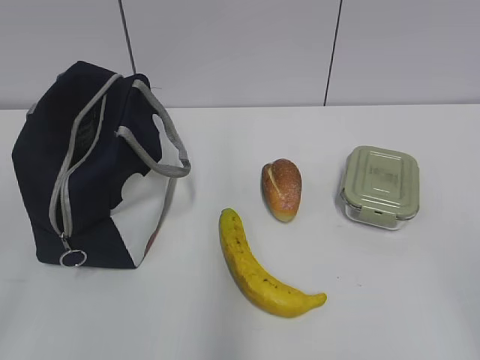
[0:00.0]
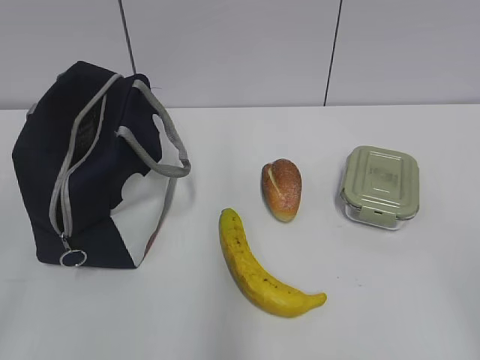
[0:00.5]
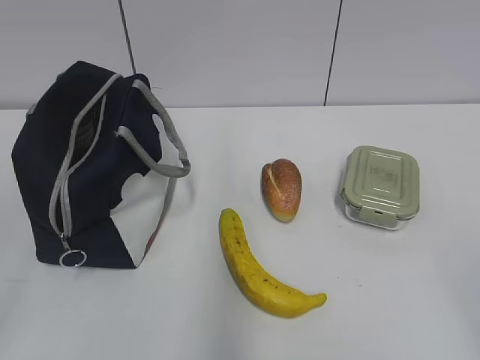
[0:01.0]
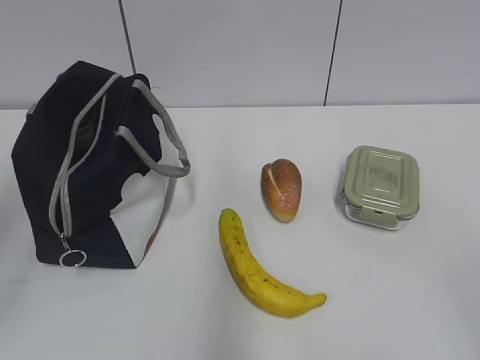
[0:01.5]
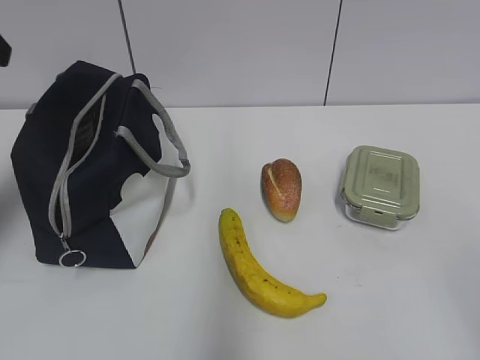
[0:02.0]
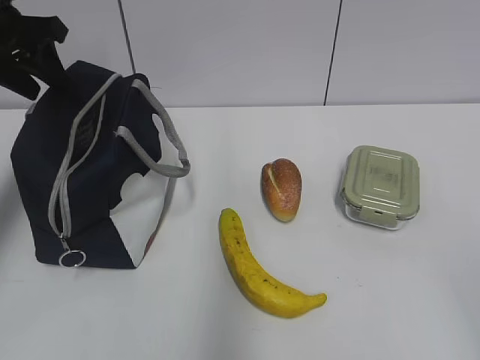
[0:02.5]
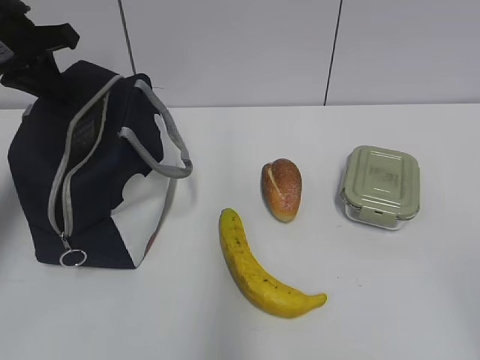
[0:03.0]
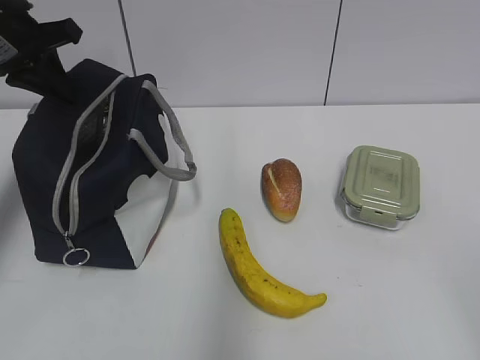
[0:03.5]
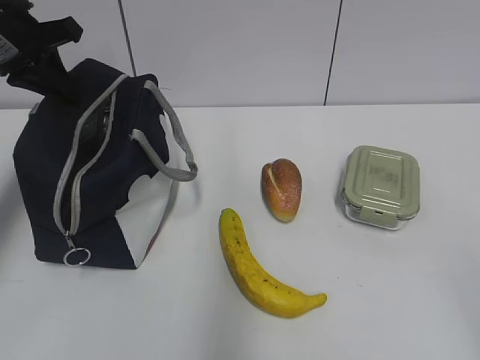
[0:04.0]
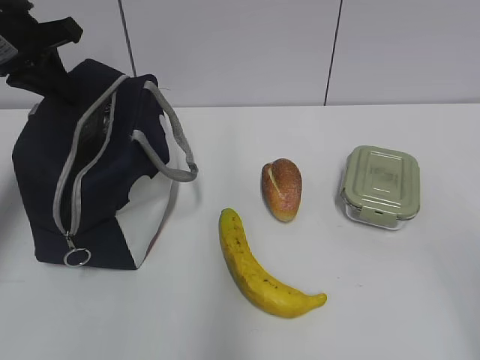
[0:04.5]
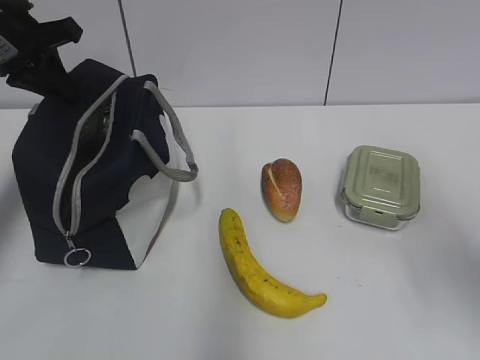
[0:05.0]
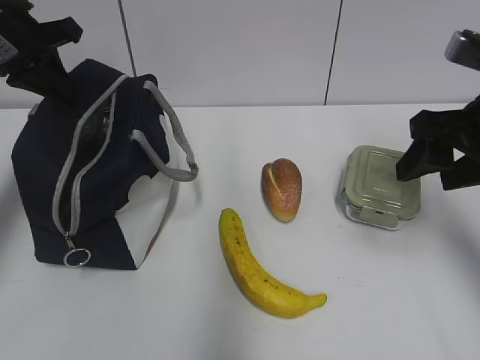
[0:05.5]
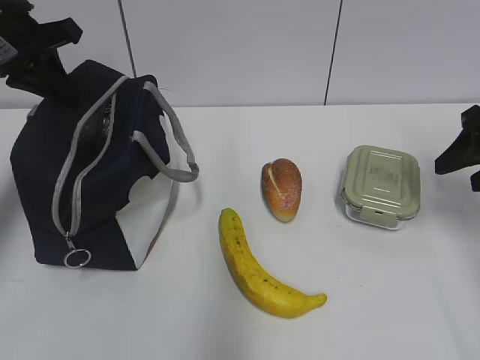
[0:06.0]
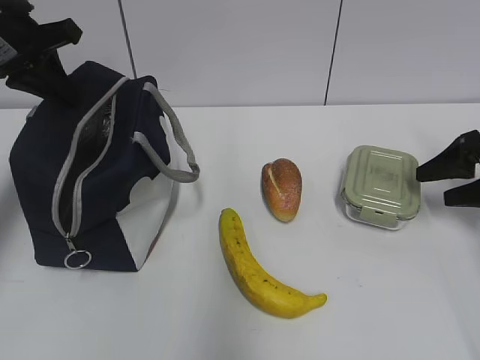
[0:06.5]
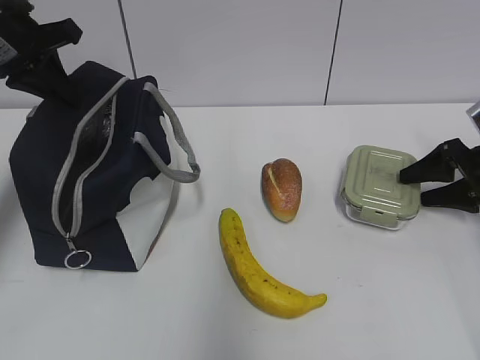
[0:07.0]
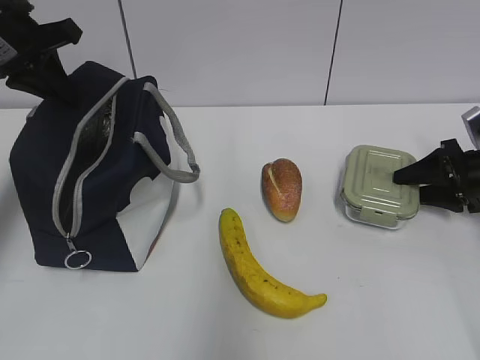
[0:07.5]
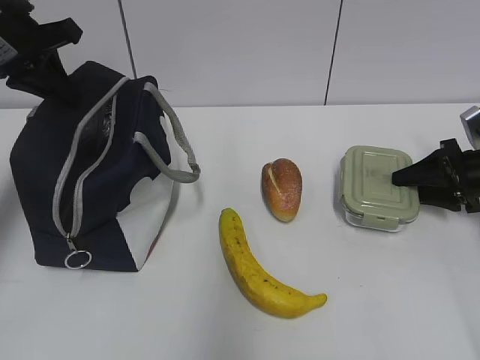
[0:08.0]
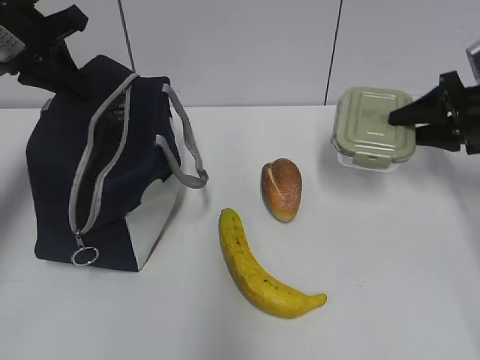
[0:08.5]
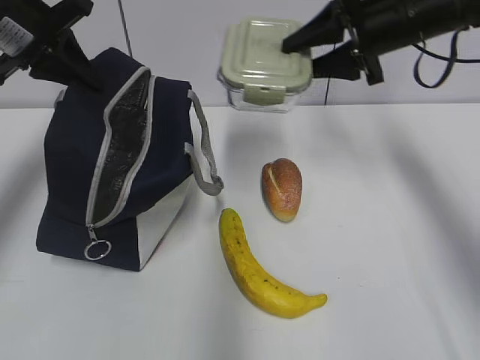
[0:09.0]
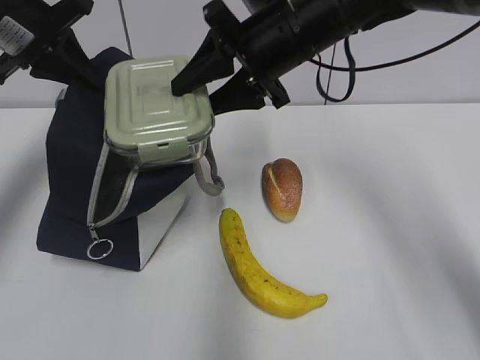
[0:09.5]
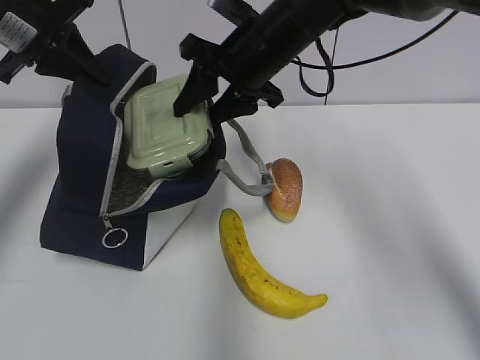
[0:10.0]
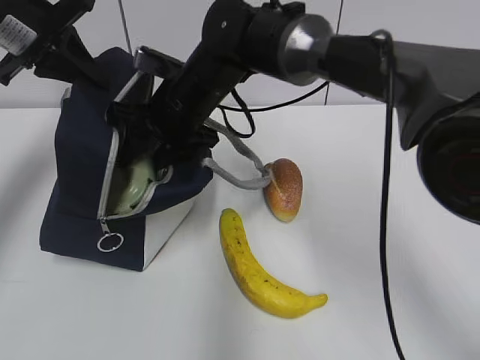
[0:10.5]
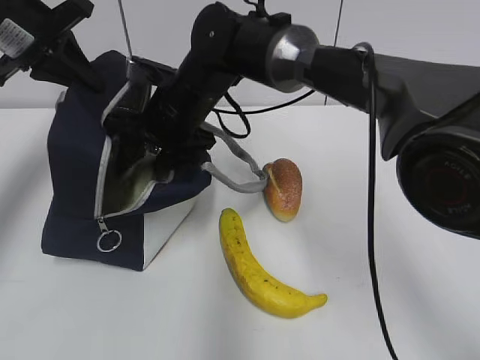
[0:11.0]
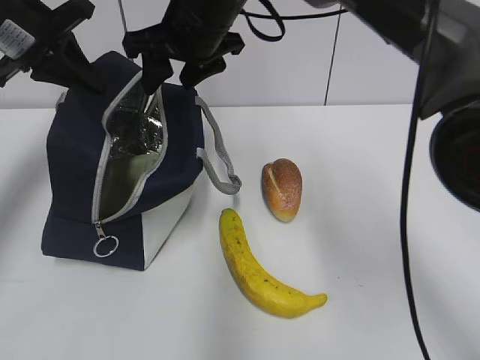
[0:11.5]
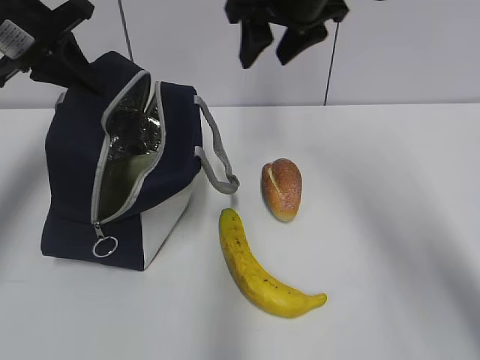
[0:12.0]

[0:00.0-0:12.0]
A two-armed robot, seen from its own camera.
Step, 0:00.0 to 0:07.0: Grab the lunch box with your right hand.
Step, 0:10.0 to 0:11.0: Place it into the bag with your right hand.
0:02.0 to 0:04.0: The left gripper is displaced forward and downward by about 15 cm, and closes its fingers.
0:04.0 to 0:06.0: The right gripper shifts about 30 cm forward.
0:06.0 to 0:08.0: The right gripper travels downward and forward by approximately 15 cm.
0:08.0 to 0:10.0: The right gripper is displaced to the left and upward by some 35 cm.
0:10.0 to 0:12.0: The right gripper travels upward by about 5 cm.

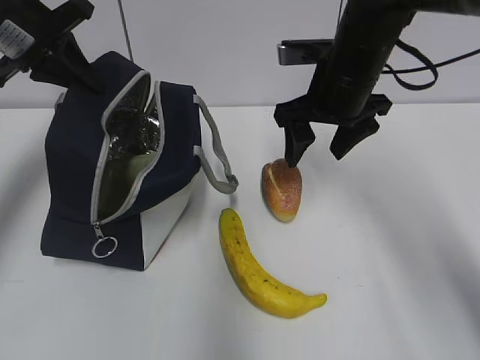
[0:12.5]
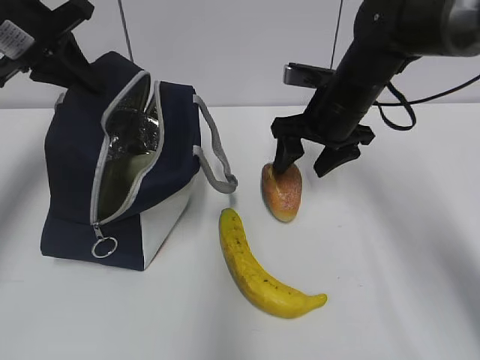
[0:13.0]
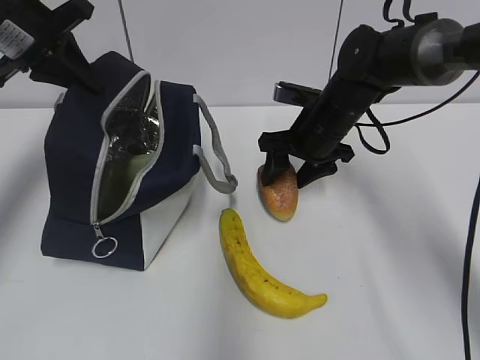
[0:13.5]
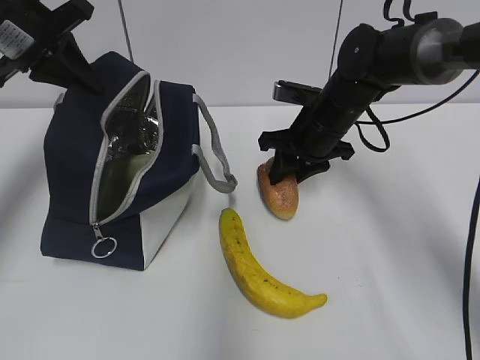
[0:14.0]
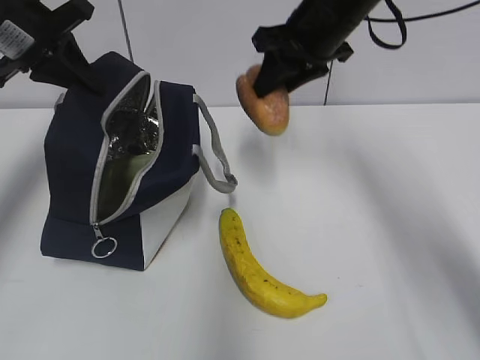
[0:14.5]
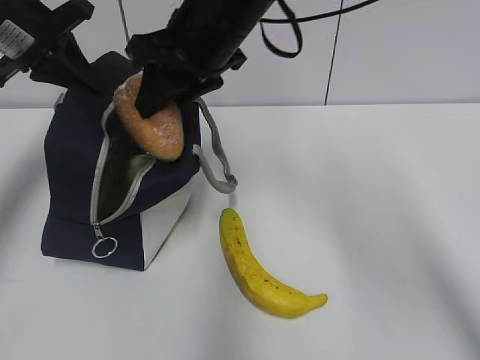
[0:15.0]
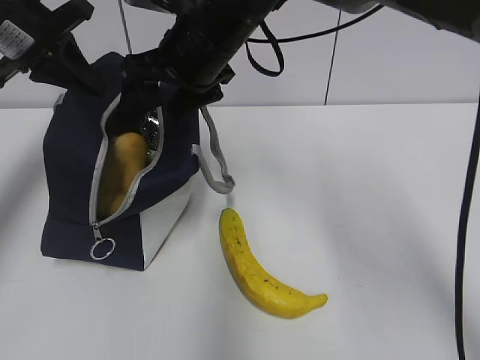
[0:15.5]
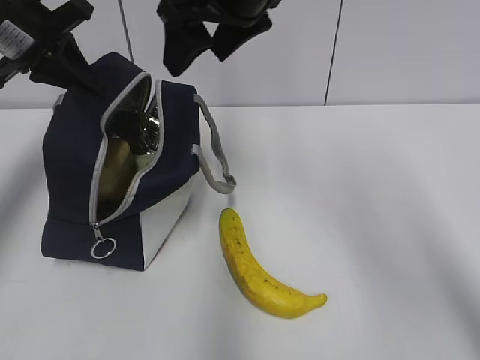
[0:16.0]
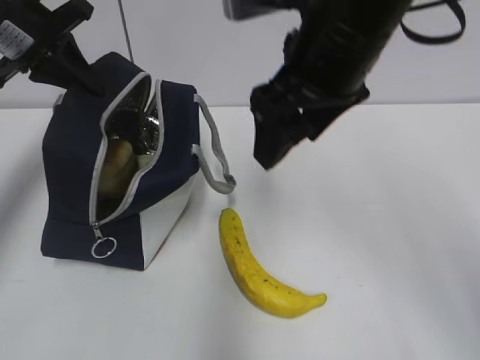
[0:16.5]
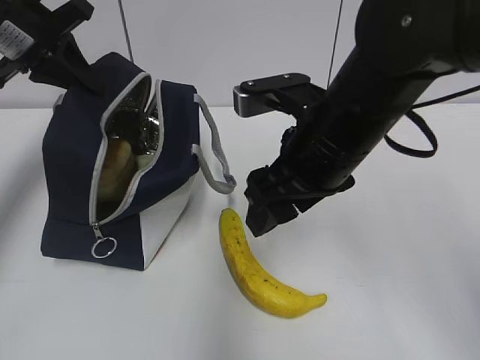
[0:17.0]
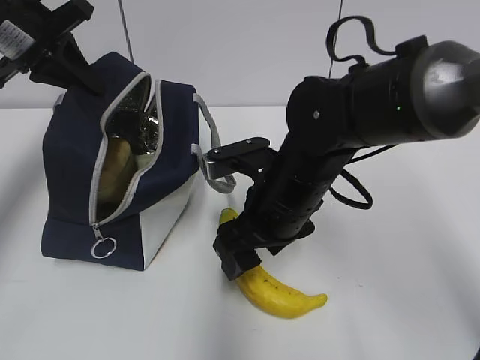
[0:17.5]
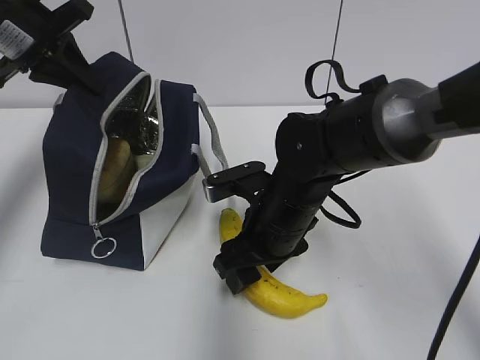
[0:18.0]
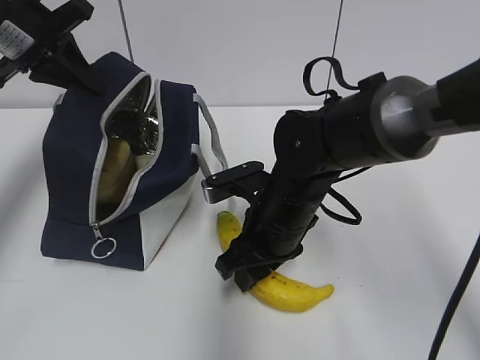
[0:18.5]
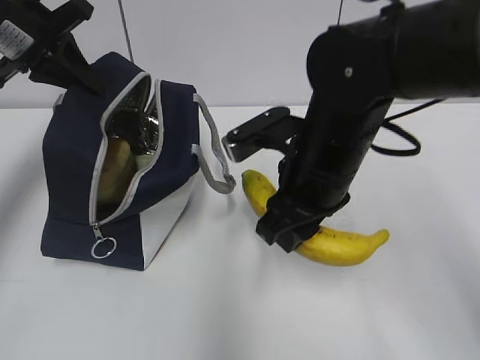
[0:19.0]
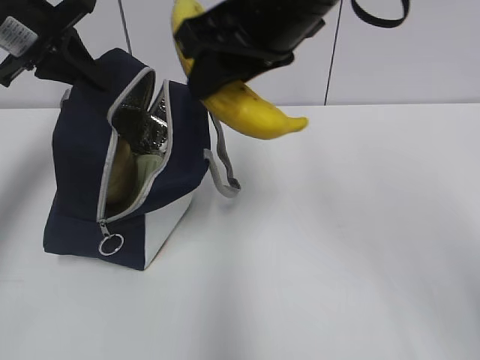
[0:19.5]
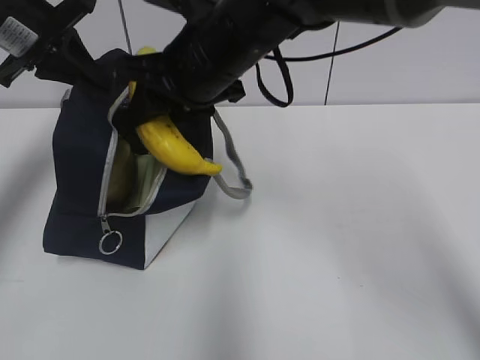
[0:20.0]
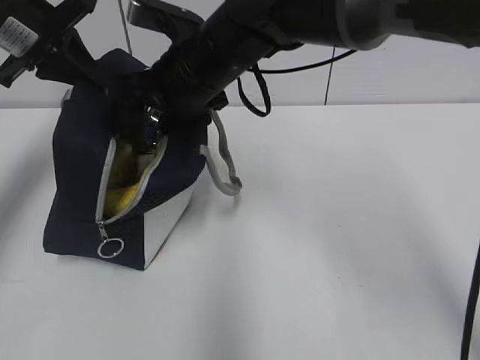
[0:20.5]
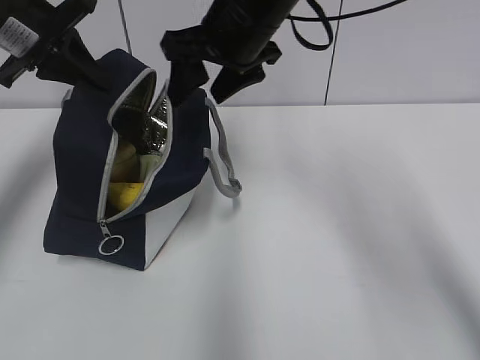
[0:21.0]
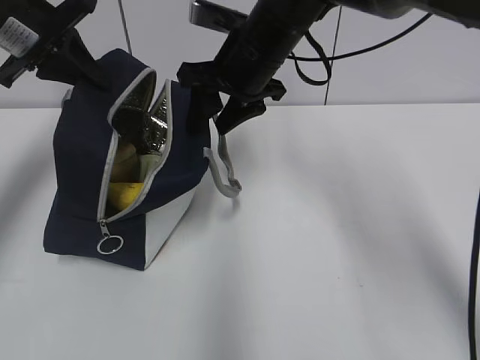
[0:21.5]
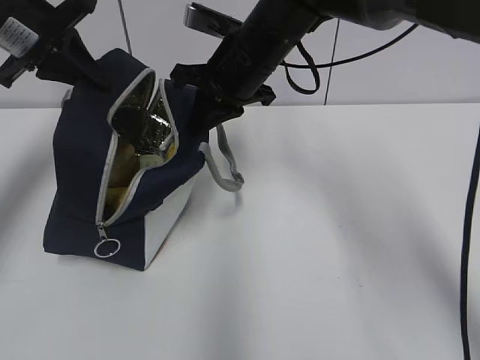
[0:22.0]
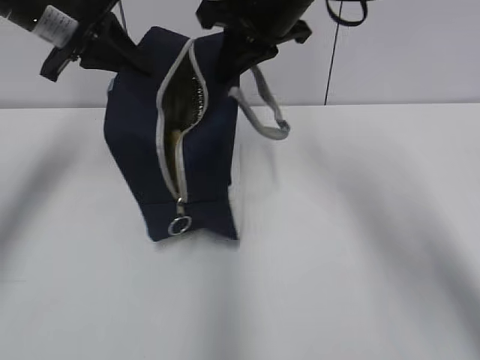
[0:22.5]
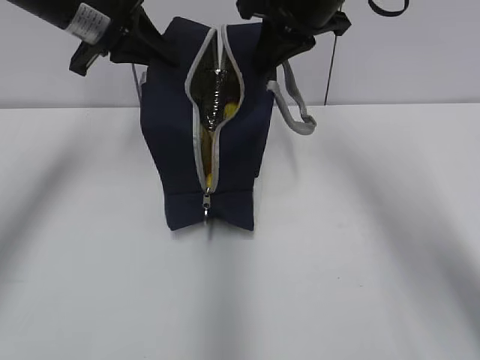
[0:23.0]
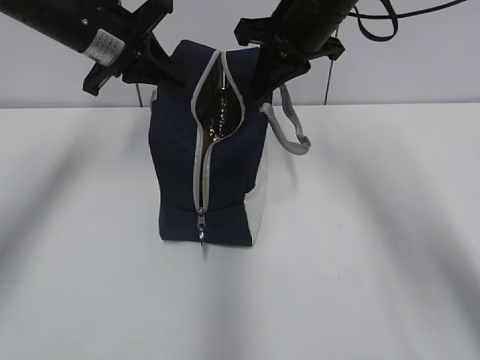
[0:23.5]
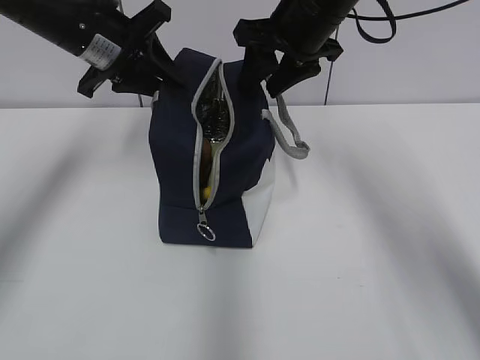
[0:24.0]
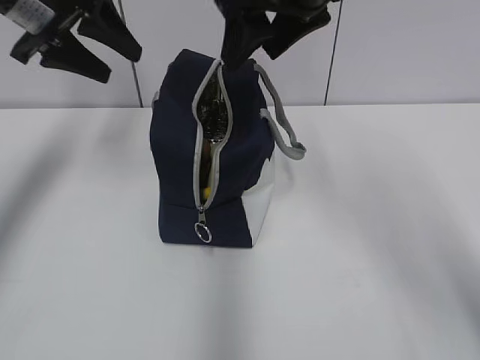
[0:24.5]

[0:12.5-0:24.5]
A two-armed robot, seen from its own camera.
Step, 0:14.0 to 0:15.5: Place it into the bag with your right hand.
Step, 0:16.0 to 0:18.0: Grab the banana with your right hand.
Step, 0:19.0 to 0:21.0: Place it into the bag with your right hand.
Step, 0:21.5 to 0:22.0: Grab the lunch bag with your right hand.
Step, 0:23.0 to 0:23.5: Move the lunch bag to the right.
0:12.5 to 0:14.5: The right gripper goes downward and returns, roughly 10 cm each way, and closes up.
0:14.5 to 0:16.5: The right gripper is displaced backward by some 15 cm, and opens up.
0:16.5 to 0:18.5: The right gripper shifts some 20 cm downward, and closes.
0:18.5 to 0:20.5: The right gripper moves upward, to the left and forward, about 15 cm, and opens.
0:20.5 to 0:22.5: The right gripper moves to the right and upward, some 10 cm, and closes up.
0:22.5 to 0:24.5: The right gripper heads backward, covering approximately 5 cm, and opens, while the left gripper opens.

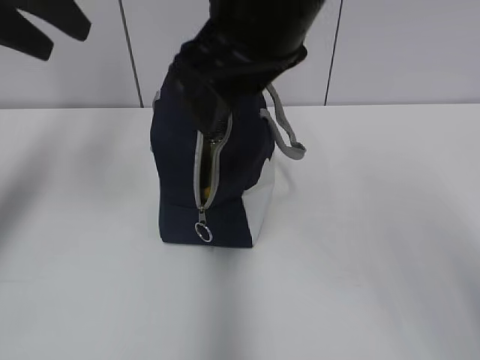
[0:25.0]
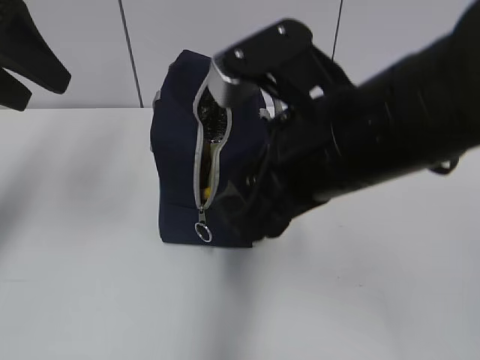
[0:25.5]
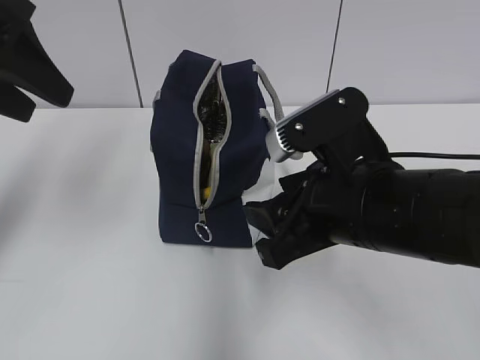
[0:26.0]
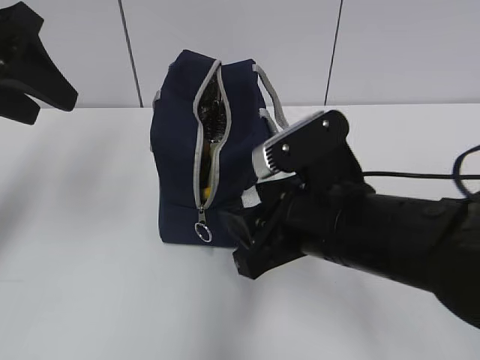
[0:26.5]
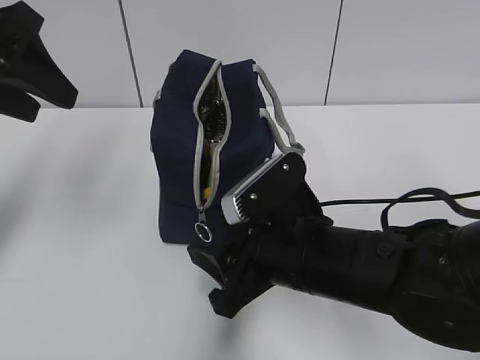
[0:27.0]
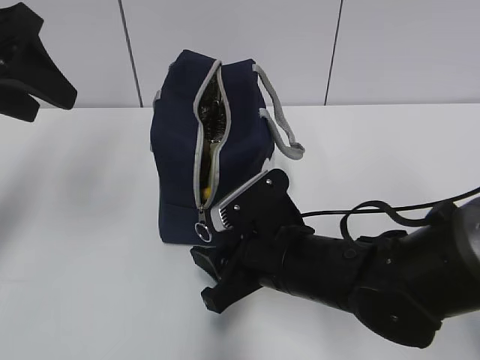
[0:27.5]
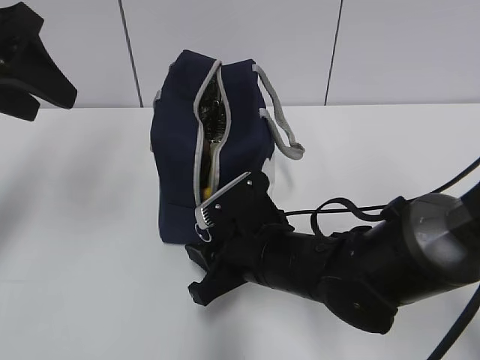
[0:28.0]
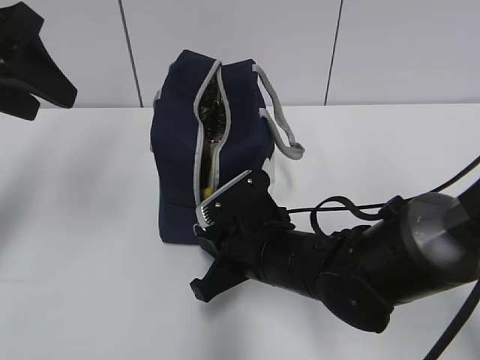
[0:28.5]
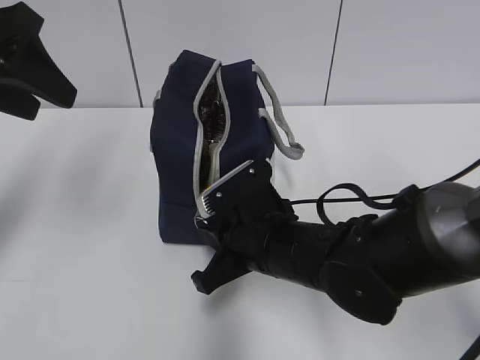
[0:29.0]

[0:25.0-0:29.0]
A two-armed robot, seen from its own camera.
0:25.0 to 0:27.0: The right gripper travels downward by approximately 20 cm, while the left gripper ends up some 5 cm from where it was.
0:27.0 to 0:29.0: The right gripper moves approximately 5 cm, and closes.
